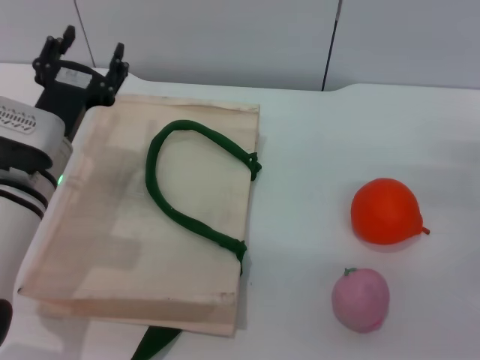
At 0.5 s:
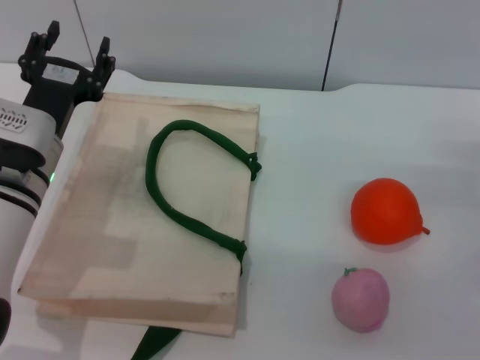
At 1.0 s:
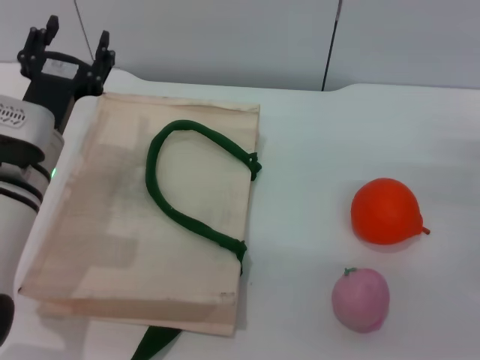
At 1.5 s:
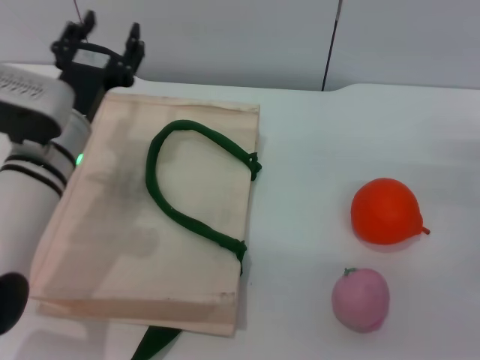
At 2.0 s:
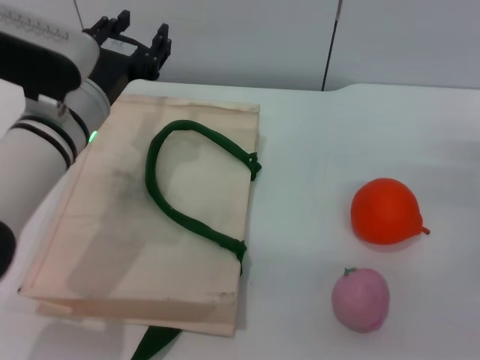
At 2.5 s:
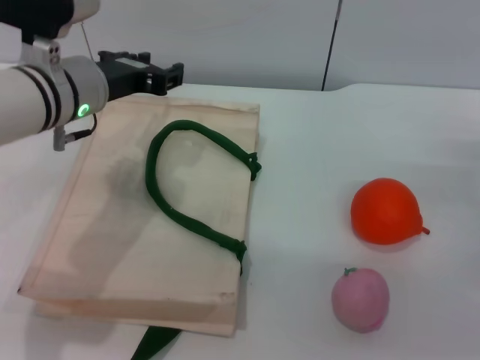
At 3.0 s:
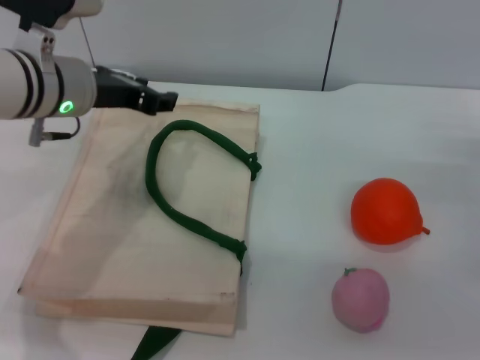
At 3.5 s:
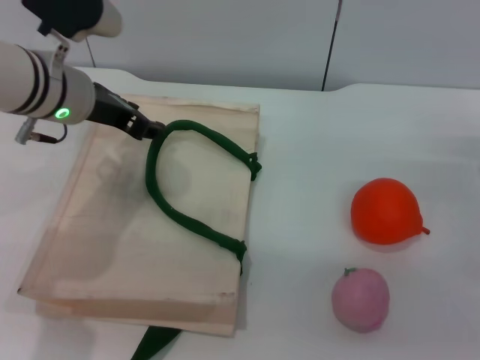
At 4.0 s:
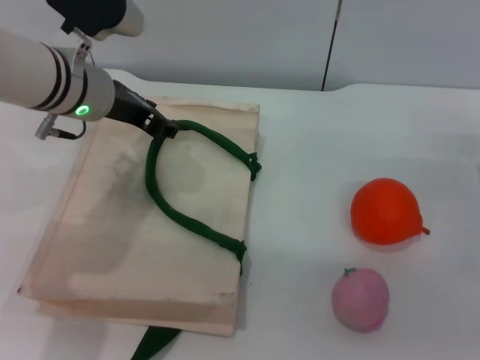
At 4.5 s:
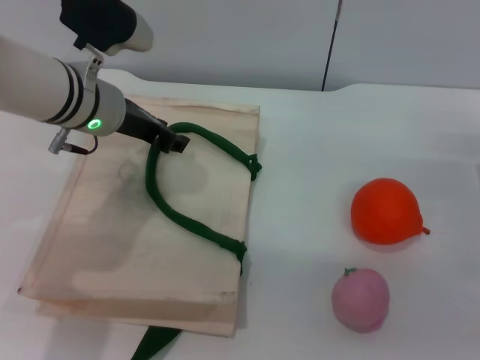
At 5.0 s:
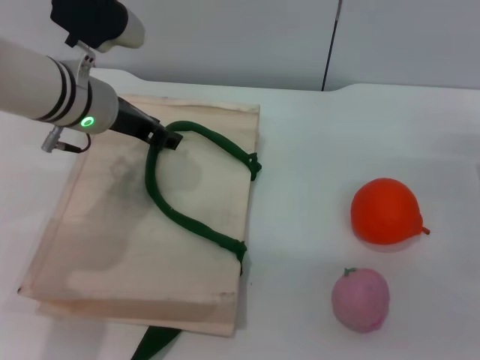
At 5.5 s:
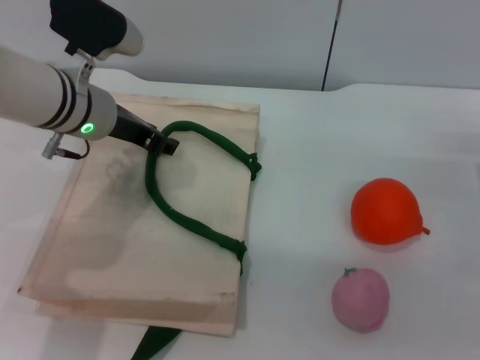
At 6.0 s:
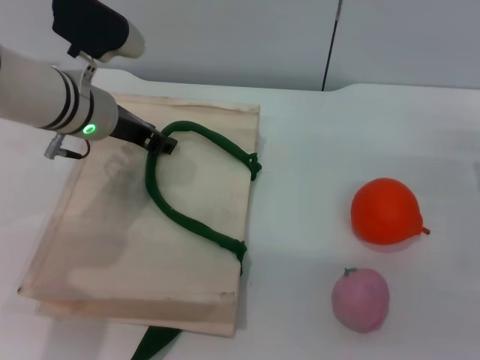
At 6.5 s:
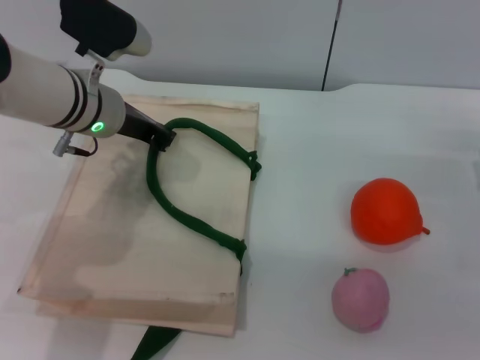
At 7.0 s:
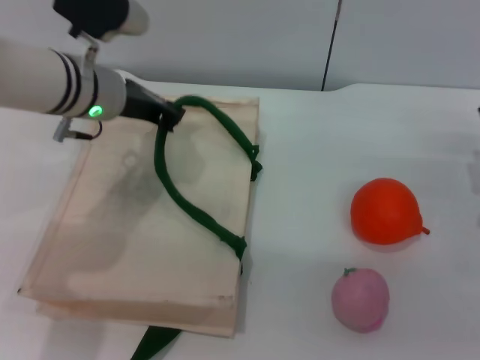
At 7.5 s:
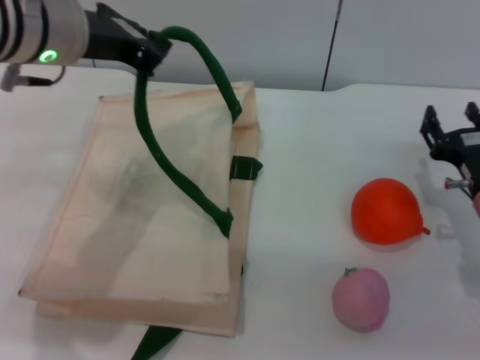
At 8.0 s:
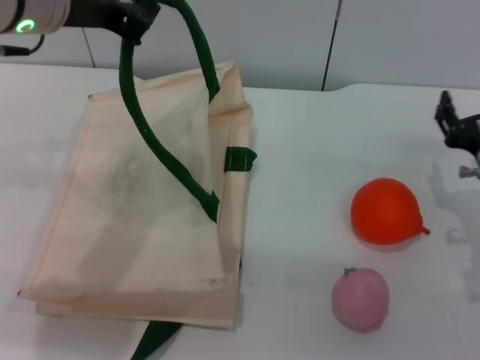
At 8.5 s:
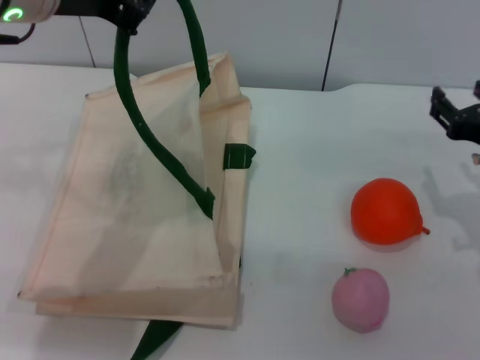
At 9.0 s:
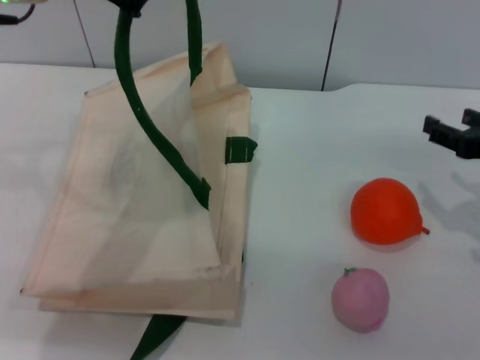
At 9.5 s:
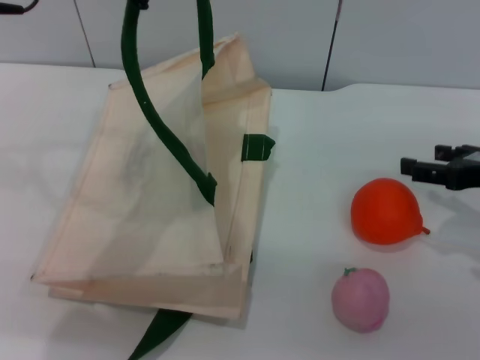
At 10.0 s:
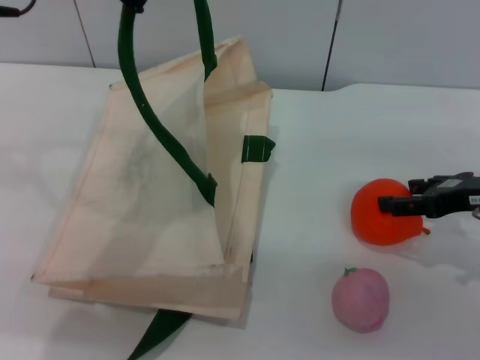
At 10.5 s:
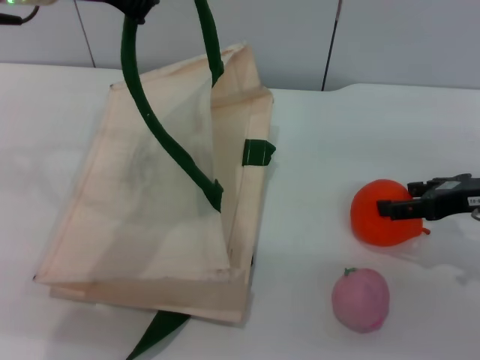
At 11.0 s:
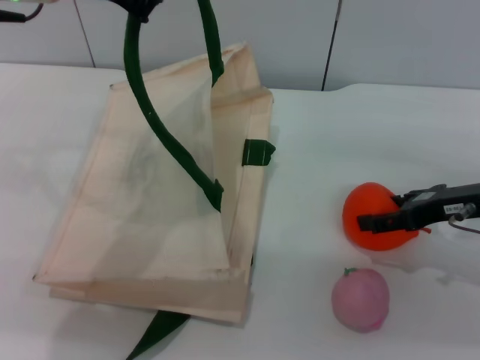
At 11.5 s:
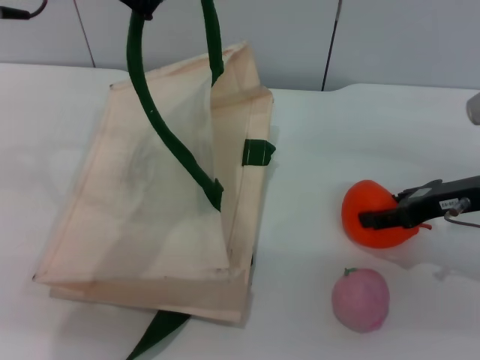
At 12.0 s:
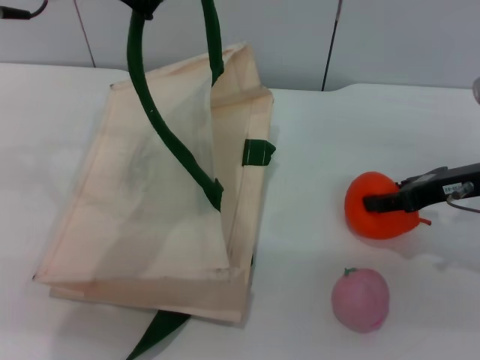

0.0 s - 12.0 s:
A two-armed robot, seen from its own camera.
Task of the whole recording: pick up the orange and peach from the table and place it in the white handbag.
Step, 0.0 s - 6.5 s: Lift the woven bag with the left gripper to open it.
0.0 s - 2.0 s: The left gripper shifts some 5 cm upward.
2.0 s - 4.0 s: The left gripper goes about 5 cm forward.
4.0 s - 6.0 s: There are only small adjustments of the grippers.
6.0 s - 8.0 s: The left gripper heads upward and backward, covering some 15 cm, and closes. Meanwhile the right gripper changes place by approximately 5 cm.
8.0 s - 10.0 s: The right gripper moves roughly 5 cm.
10.0 s - 12.0 s: The grippers move only a little.

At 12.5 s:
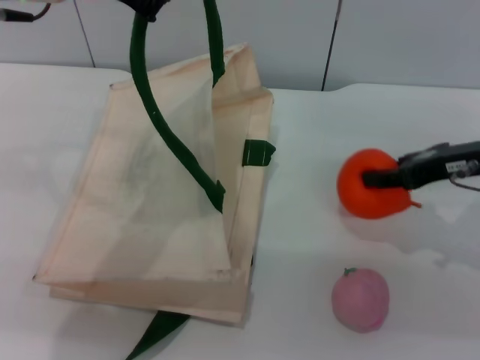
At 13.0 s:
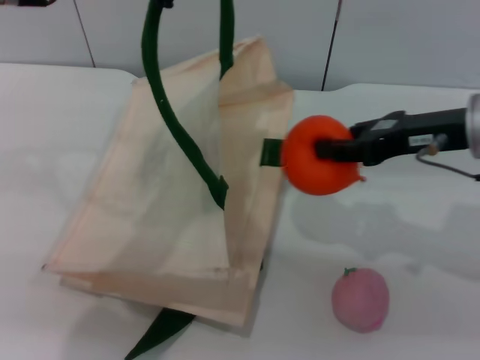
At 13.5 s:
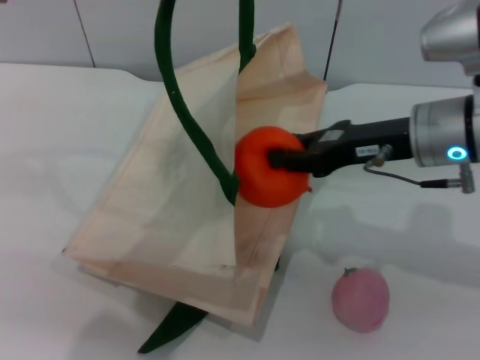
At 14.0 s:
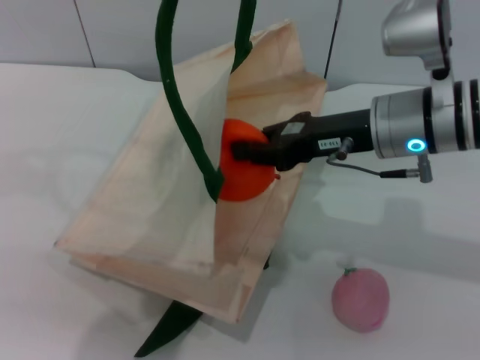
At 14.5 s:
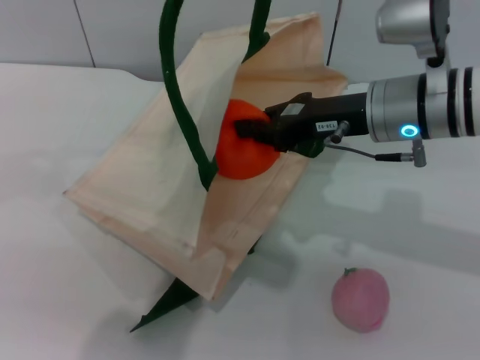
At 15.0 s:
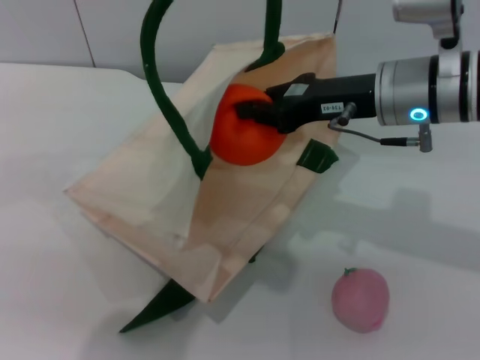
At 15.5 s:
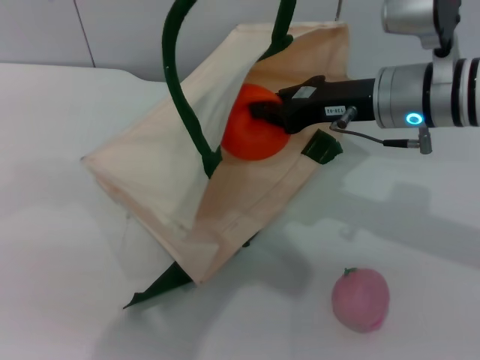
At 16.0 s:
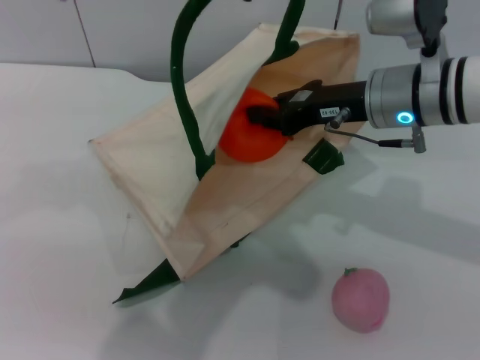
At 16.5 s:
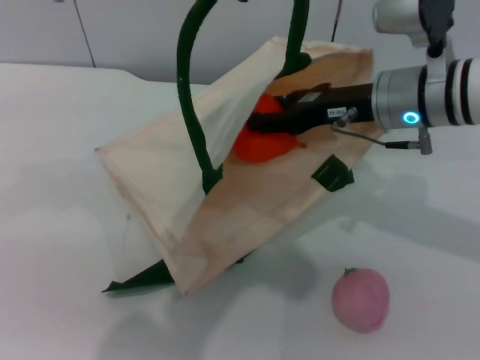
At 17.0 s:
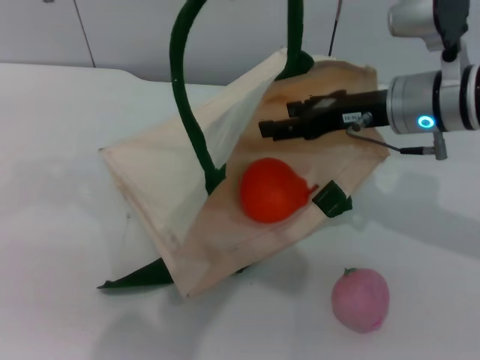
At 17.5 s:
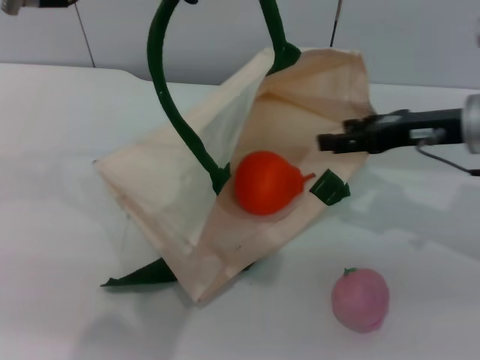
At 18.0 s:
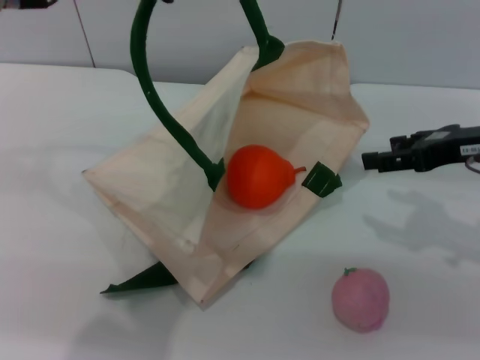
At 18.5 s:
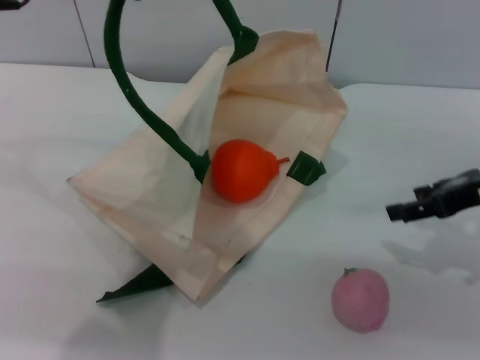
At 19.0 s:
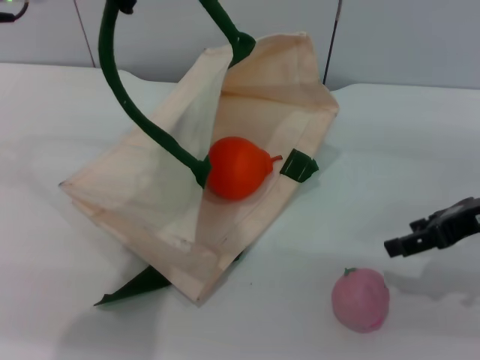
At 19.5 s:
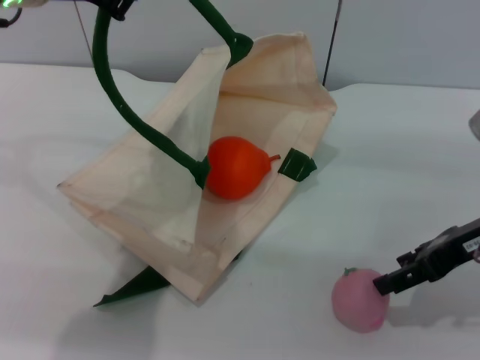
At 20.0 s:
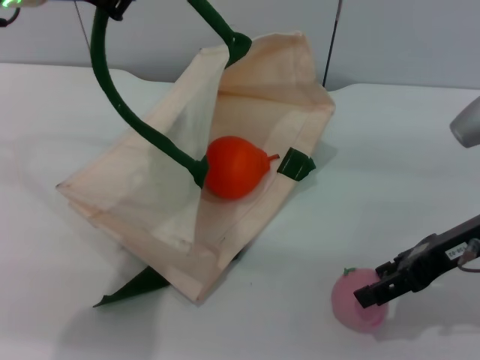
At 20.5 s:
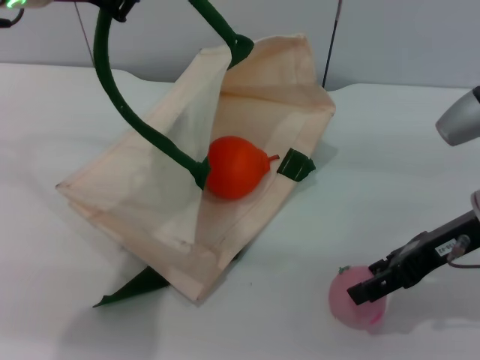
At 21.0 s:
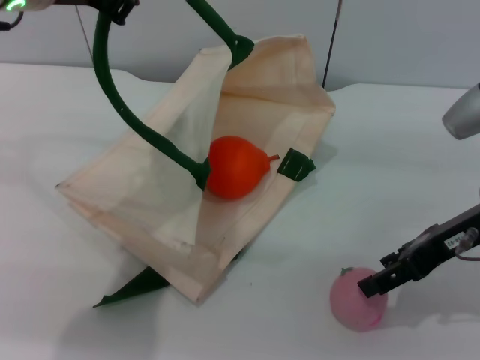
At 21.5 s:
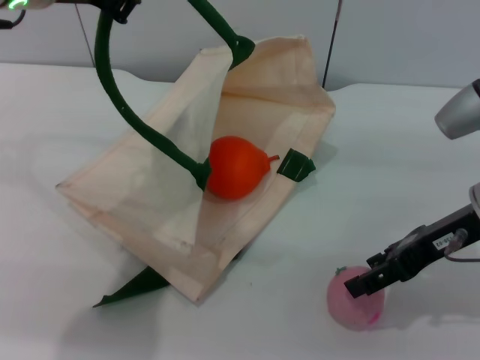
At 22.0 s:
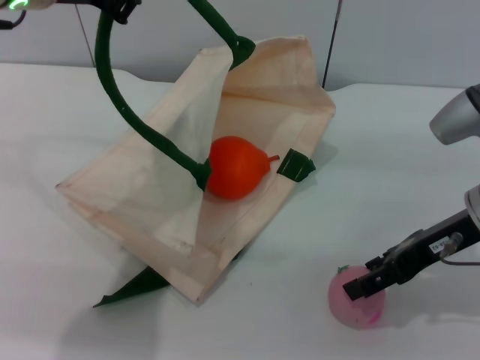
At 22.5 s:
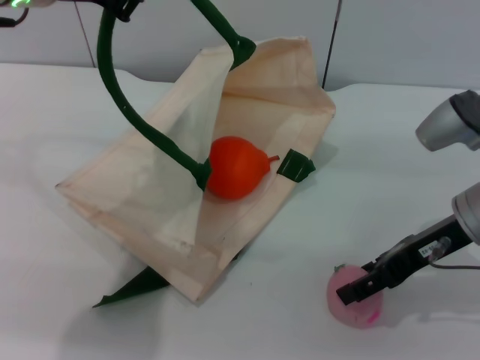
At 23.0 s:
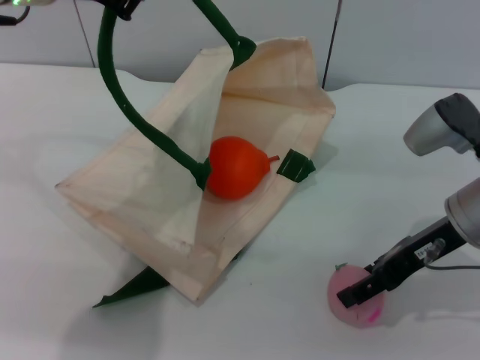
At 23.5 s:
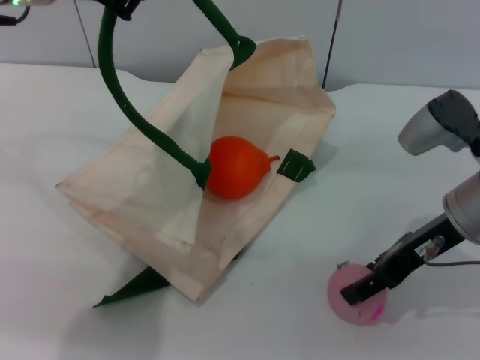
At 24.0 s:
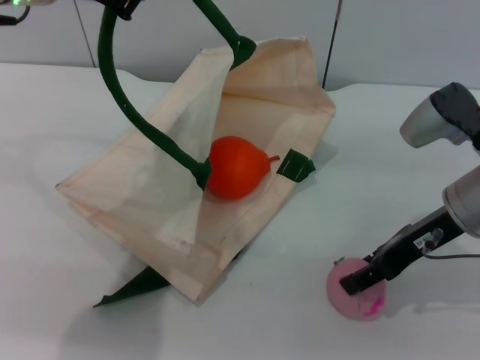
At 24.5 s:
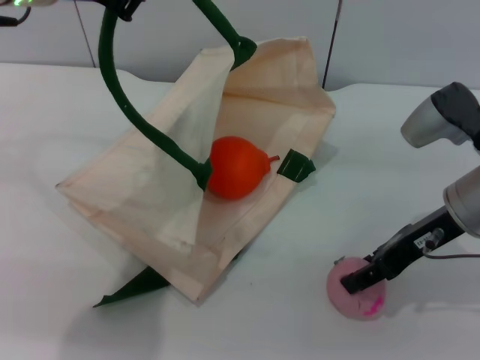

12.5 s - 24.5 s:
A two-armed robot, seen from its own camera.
Task of the whole recording: pick up the orange and peach from the table and place it in the white handbag.
Step, 13.0 s - 17.5 s: Place the orange into the woven bag with the right gripper.
12.5 s - 14.5 s: The left gripper moves roughly 5 cm. Meanwhile the right gripper travels to the left by about 10 cm, and closes its fingers.
14.5 s - 16.5 s: The right gripper opens its fingers.
16.5 s - 18.5 s: The right gripper is displaced to the right and backward by some 15 cm, while the left gripper heads to the left, covering approximately 5 cm.
18.5 s - 20.5 s: The right gripper goes some 5 cm to the left.
20.5 s - 24.5 s: There are only small adjustments of the grippers.

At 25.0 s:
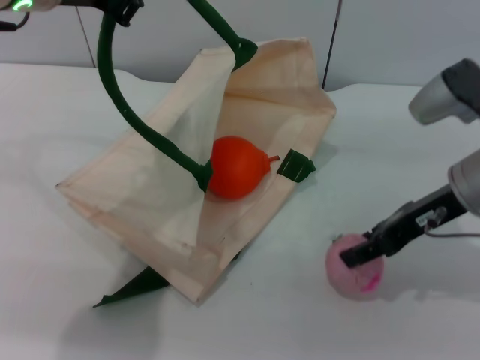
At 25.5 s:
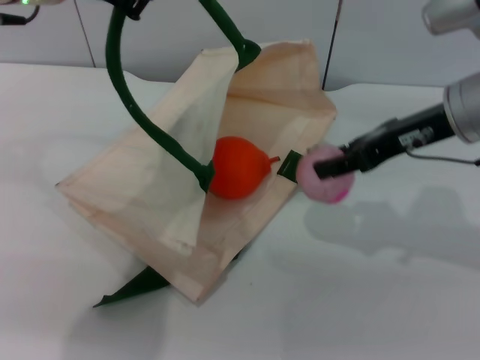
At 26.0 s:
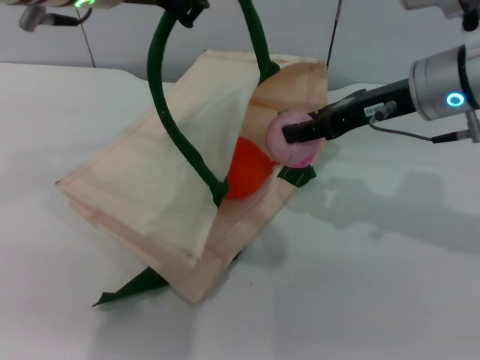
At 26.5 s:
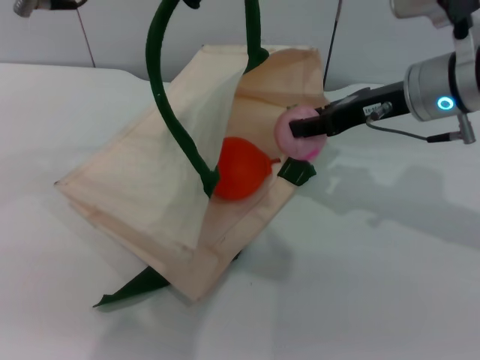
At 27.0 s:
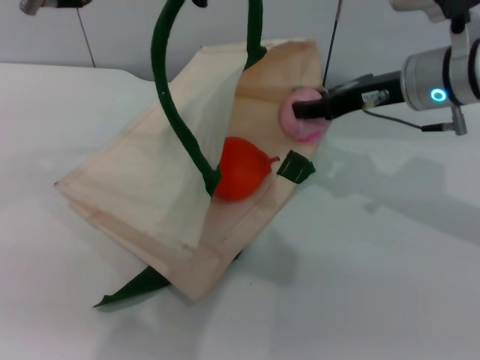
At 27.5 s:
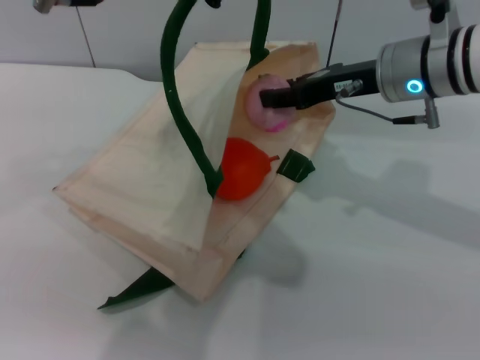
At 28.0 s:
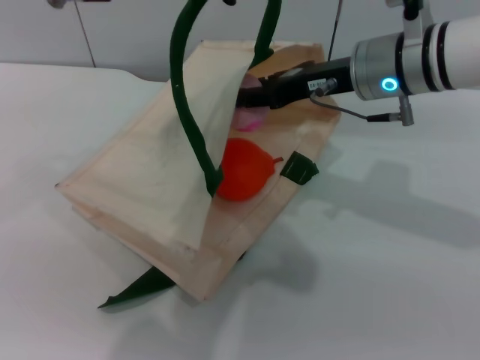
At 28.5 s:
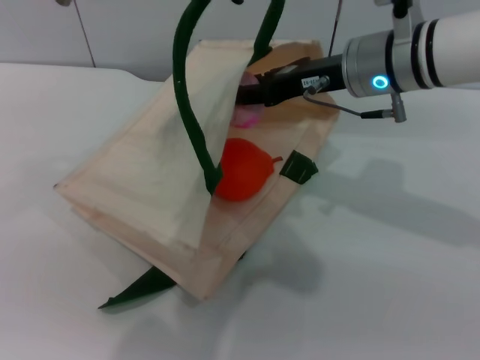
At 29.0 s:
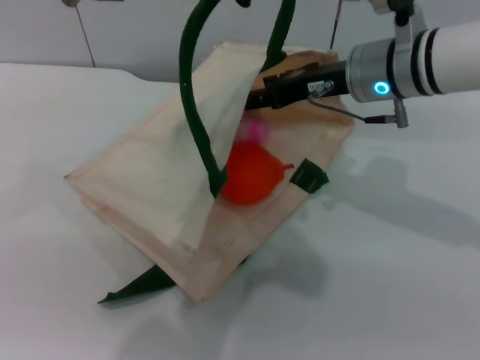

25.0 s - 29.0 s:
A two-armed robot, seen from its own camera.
Task of the whole recording: pick up the orange and peach from the table and place it in the white handbag.
25.0 s - 27.0 s: The left gripper is displaced to the right by about 5 cm, while the right gripper moves forward, roughly 5 cm.
27.0 s - 29.0 s: The right gripper moves to the left, some 5 cm.
